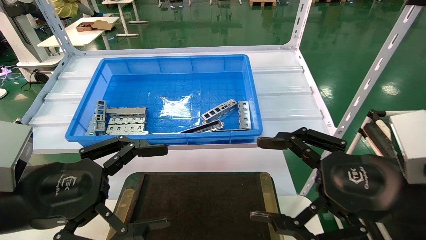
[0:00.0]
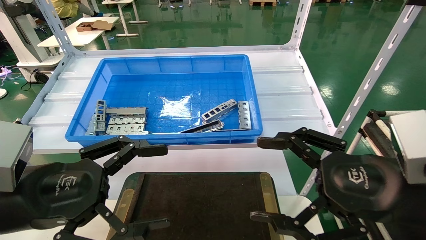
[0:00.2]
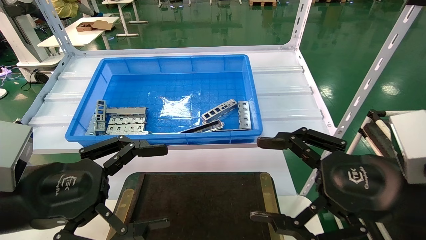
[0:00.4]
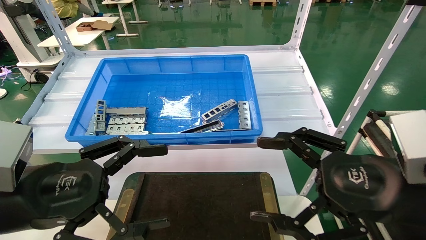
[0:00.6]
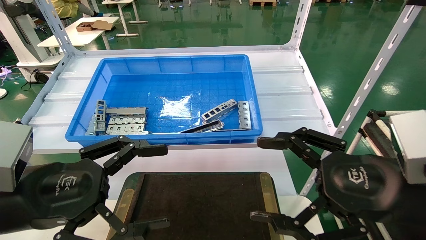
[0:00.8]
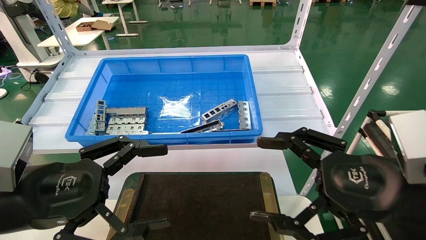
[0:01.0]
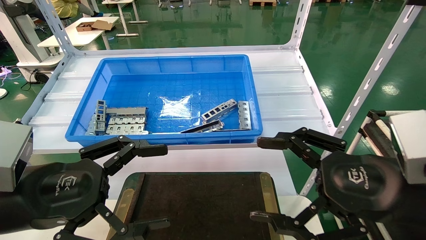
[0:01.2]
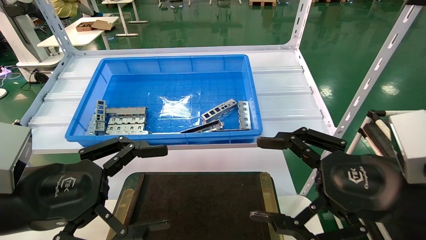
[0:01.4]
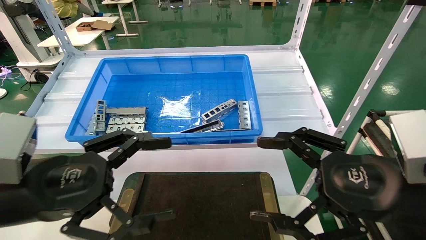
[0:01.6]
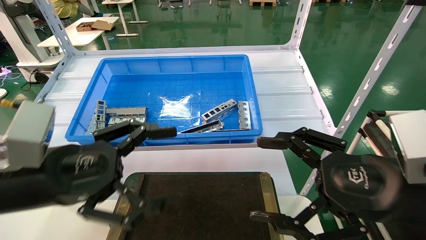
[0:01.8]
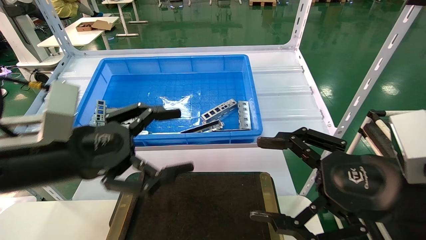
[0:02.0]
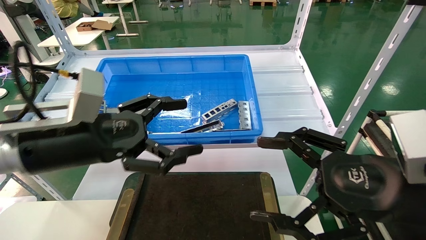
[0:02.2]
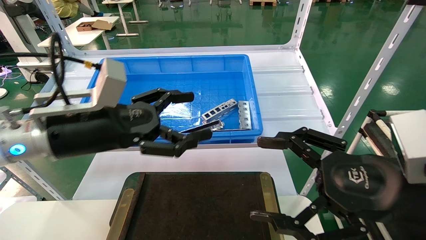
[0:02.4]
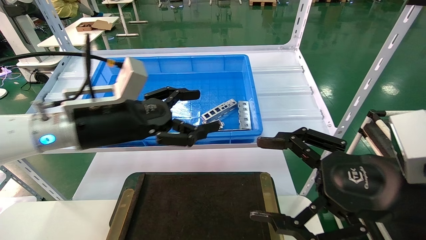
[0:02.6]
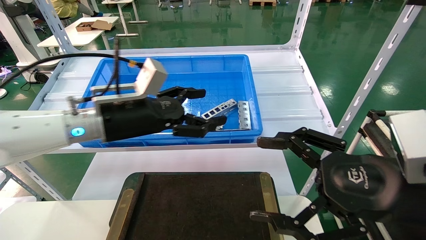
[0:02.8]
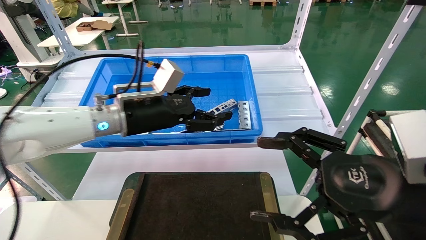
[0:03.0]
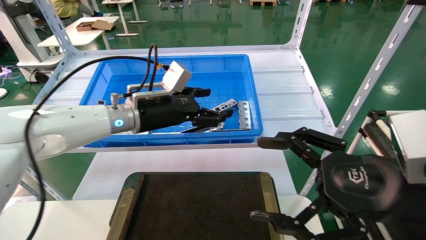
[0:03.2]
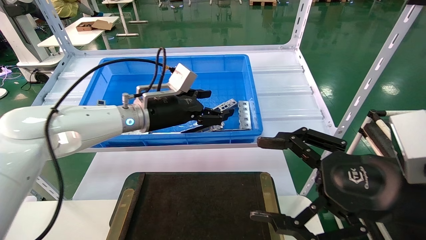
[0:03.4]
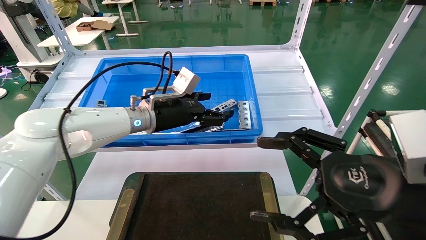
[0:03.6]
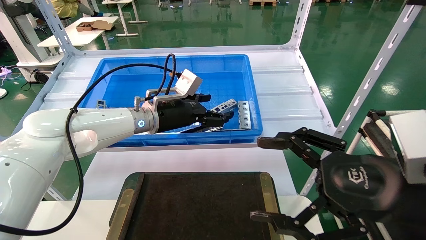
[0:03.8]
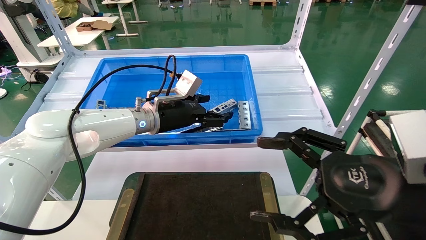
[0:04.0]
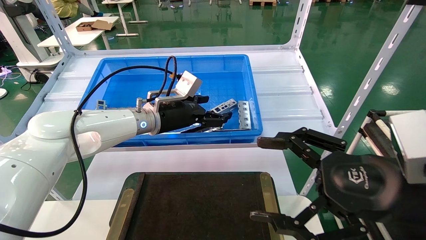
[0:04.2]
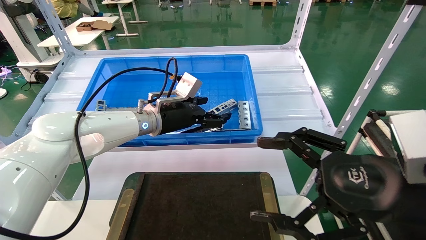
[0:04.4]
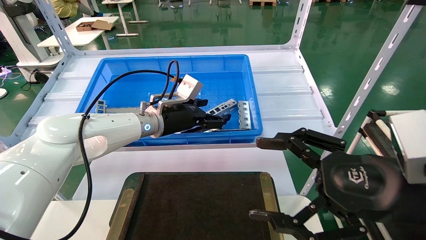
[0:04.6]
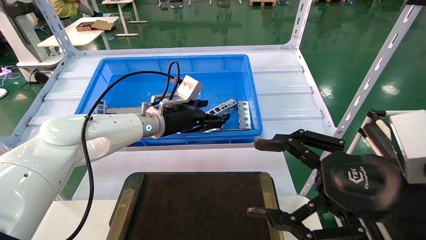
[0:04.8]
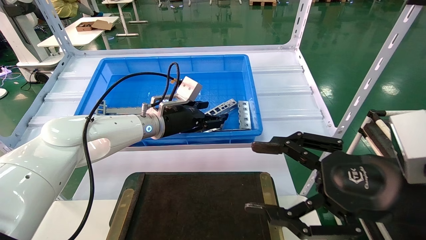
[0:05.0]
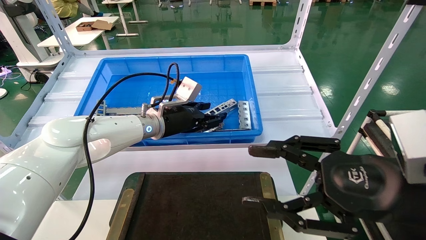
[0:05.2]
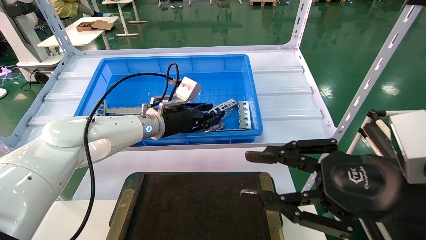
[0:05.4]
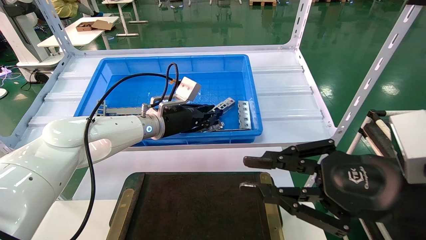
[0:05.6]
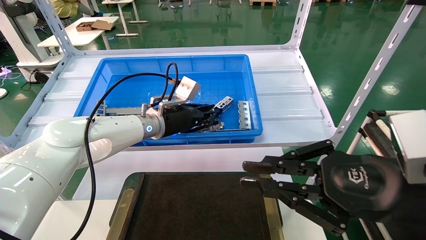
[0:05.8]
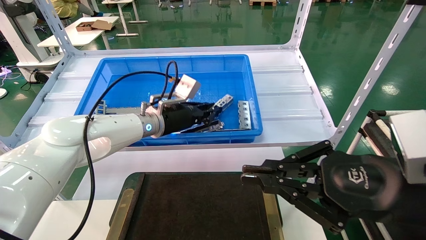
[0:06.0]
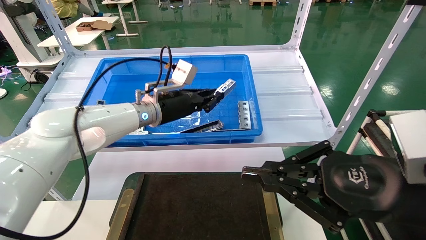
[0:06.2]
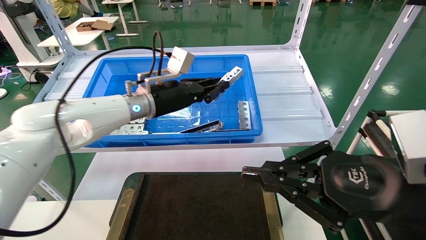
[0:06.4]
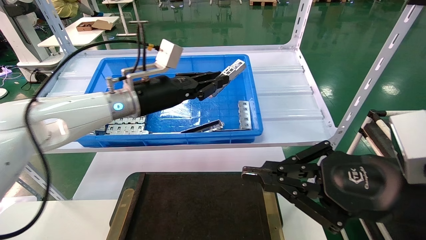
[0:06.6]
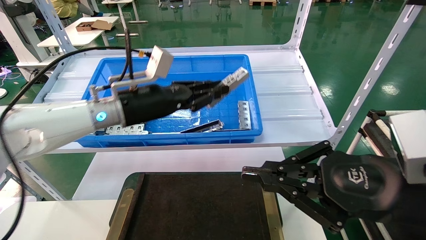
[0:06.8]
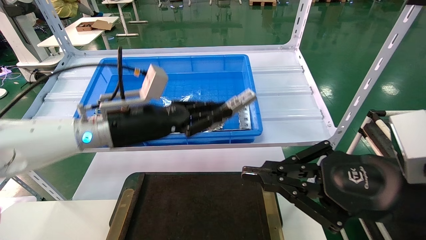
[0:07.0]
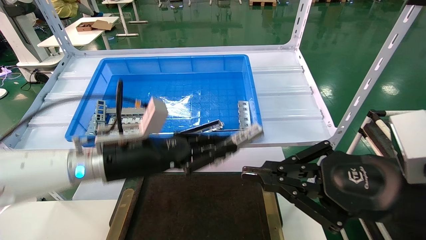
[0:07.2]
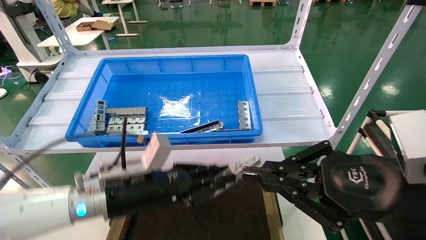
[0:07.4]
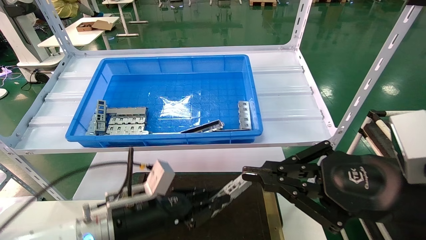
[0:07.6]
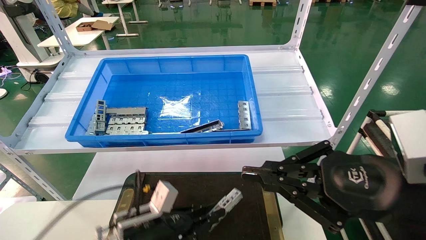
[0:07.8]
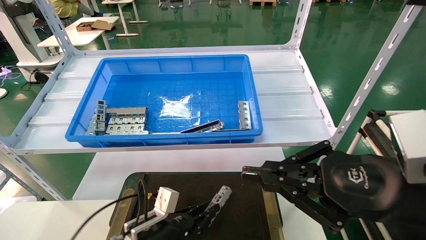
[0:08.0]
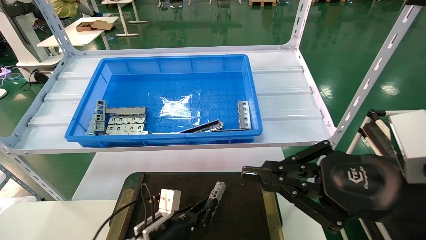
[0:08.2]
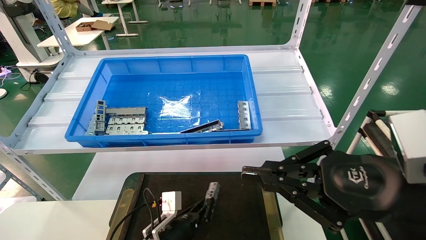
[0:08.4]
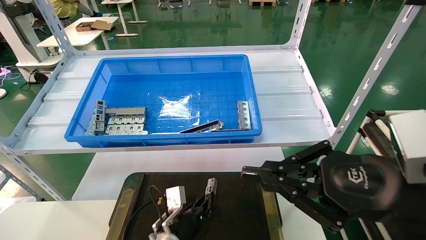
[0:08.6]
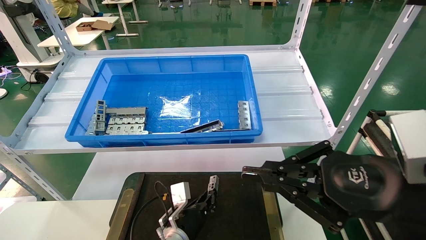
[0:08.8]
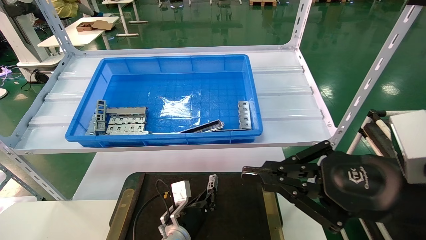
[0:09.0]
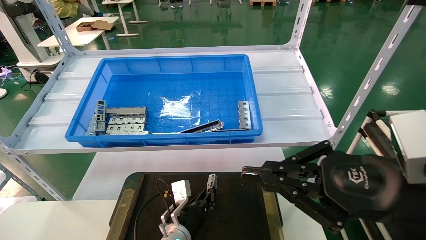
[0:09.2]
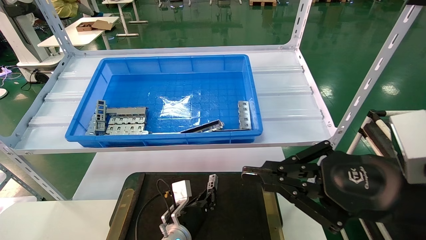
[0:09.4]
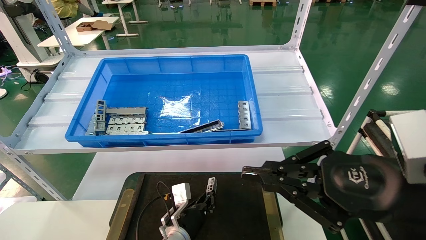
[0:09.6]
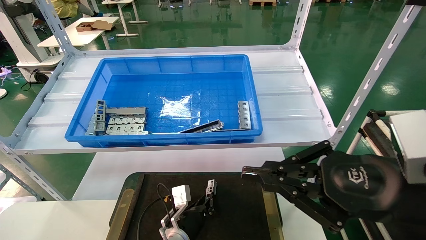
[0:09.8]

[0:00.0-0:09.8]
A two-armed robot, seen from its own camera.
Task of the whole recording: Grasp the part with one hand and place it on the black container.
Step, 0:01.8 to 0:05.8: Pick up the front USB bracket from the feeding area.
0:00.0 to 0:01.4: The two grippers keep their place.
0:01.4 to 0:02.8: The left gripper moves forward and to the right, approximately 20 cm.
0:02.8 to 0:04.2: The left gripper travels forward and to the right by roughly 10 cm.
0:04.2 to 0:05.6: The right gripper closes its fingers. The left gripper closes its fingers.
0:05.6 to 0:07.0: The left gripper goes roughly 10 cm backward. The right gripper closes its fingers.
0:07.0 to 0:08.4: The left gripper heads downward, covering some 30 cm.
0:08.4 to 0:09.8: The left gripper ends up about 5 cm from where it was.

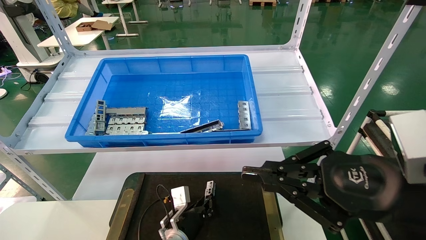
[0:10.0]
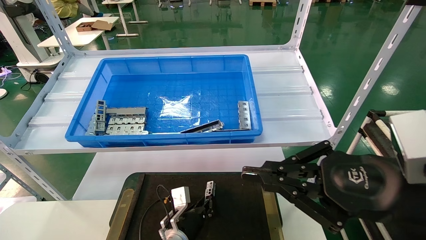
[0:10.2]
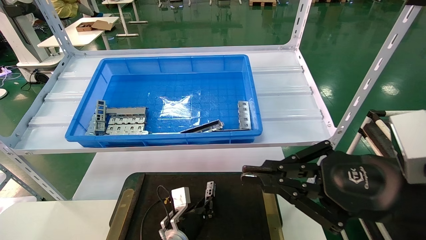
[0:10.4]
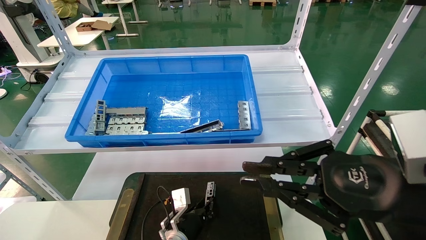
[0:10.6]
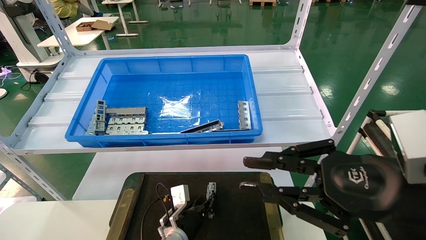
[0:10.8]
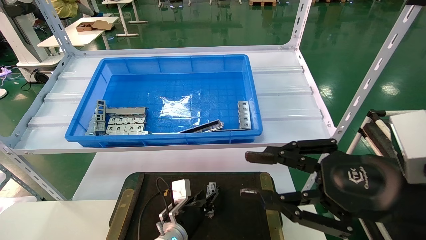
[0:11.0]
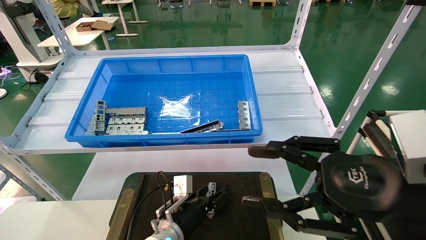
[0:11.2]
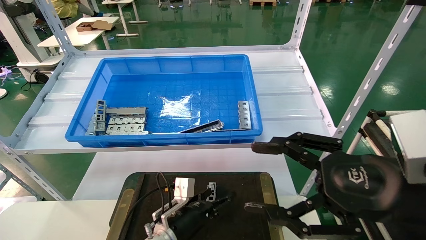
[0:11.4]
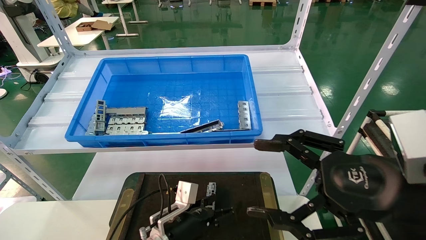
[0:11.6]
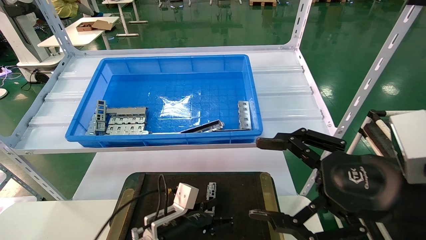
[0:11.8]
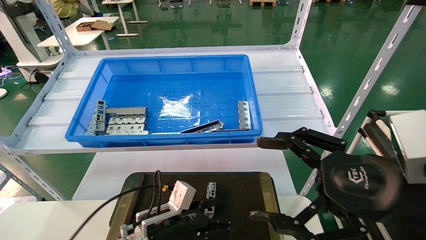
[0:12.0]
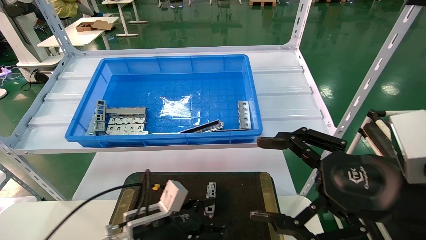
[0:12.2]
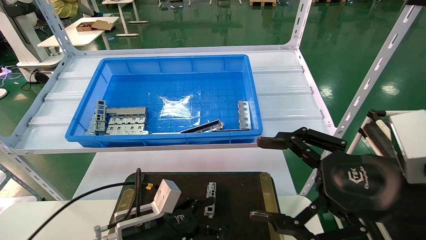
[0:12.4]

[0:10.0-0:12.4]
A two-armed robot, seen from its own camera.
Task of the whole recording: Grasp the part with one hand and place it on the black container.
0:10.0 to 0:11.2: The left gripper opens up. The right gripper opens its fingers.
0:11.2 to 0:12.4: The right gripper opens up. Meanwhile the left gripper goes roughly 15 cm backward, upward and to the left, and opens.
